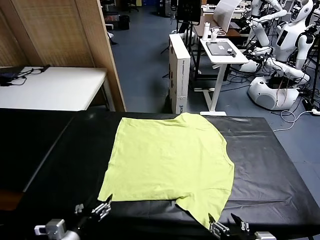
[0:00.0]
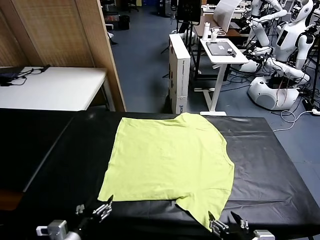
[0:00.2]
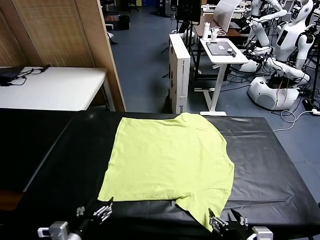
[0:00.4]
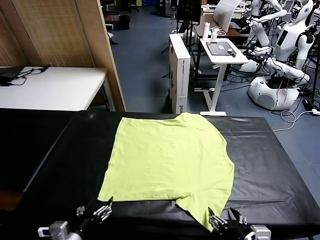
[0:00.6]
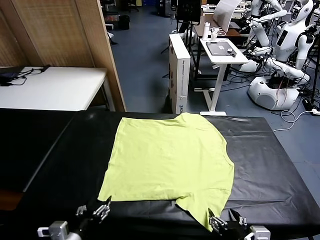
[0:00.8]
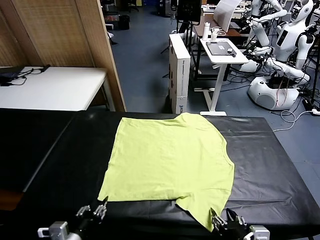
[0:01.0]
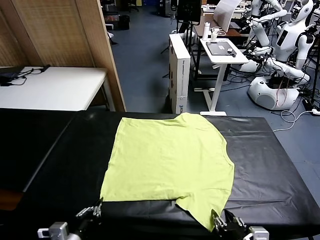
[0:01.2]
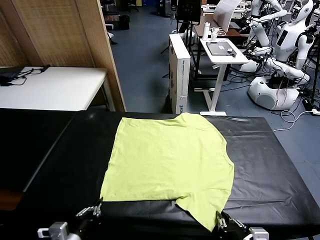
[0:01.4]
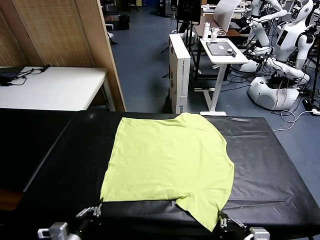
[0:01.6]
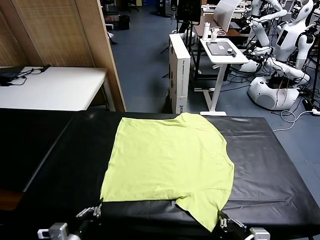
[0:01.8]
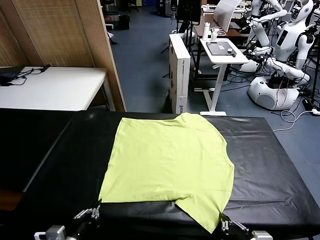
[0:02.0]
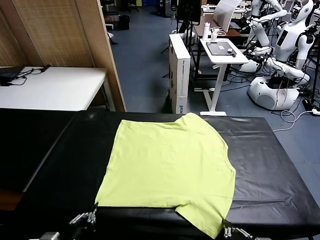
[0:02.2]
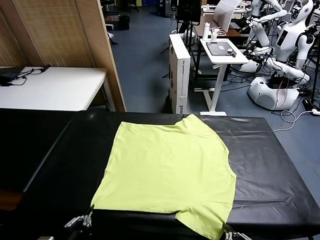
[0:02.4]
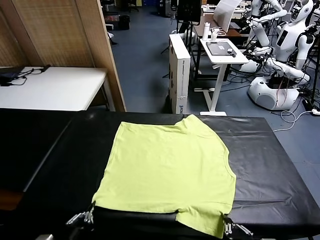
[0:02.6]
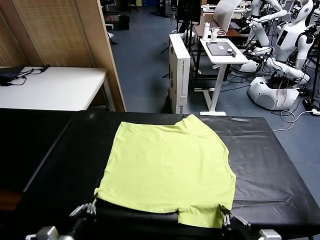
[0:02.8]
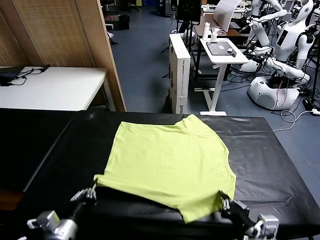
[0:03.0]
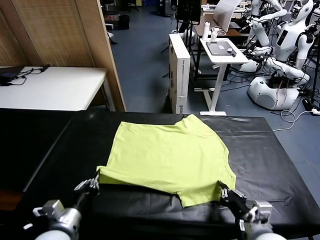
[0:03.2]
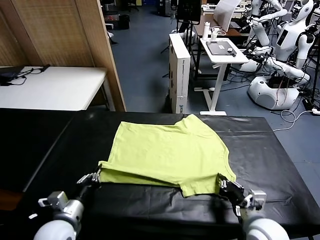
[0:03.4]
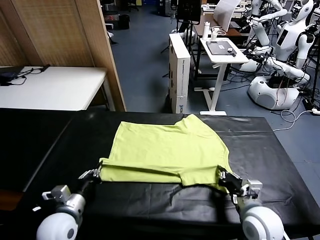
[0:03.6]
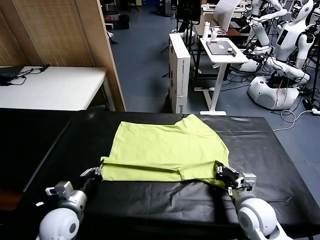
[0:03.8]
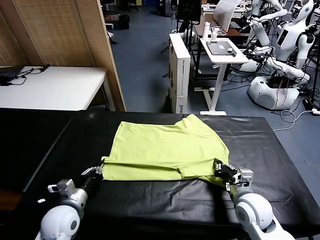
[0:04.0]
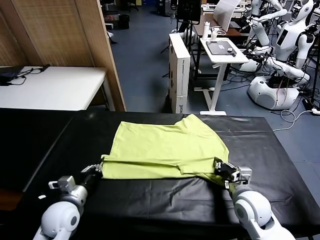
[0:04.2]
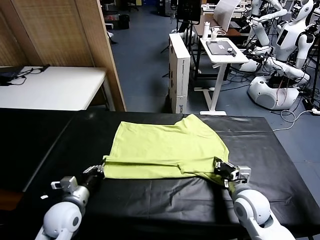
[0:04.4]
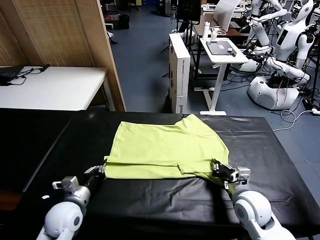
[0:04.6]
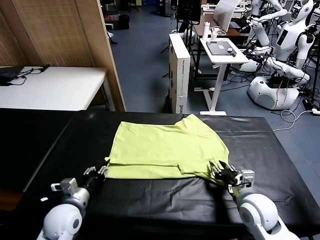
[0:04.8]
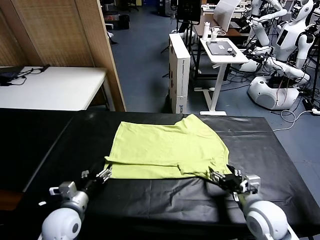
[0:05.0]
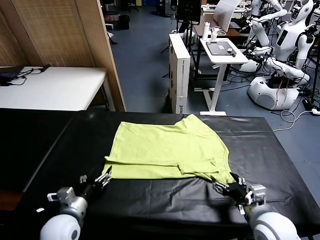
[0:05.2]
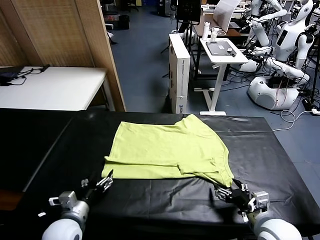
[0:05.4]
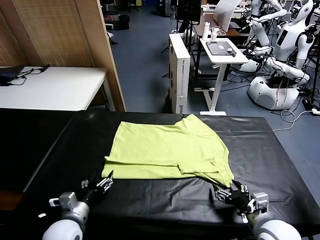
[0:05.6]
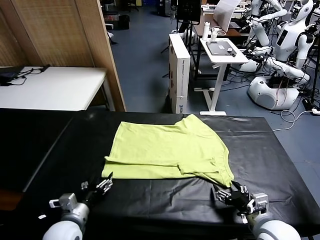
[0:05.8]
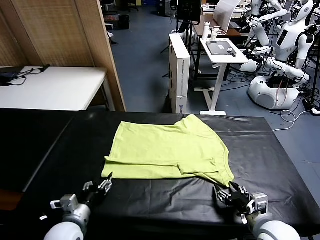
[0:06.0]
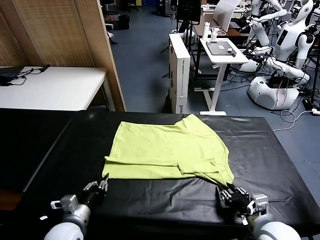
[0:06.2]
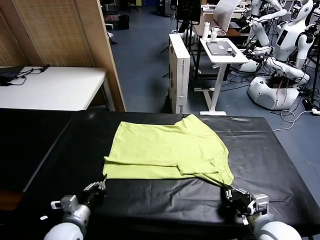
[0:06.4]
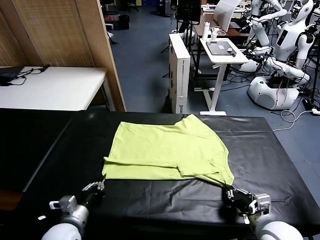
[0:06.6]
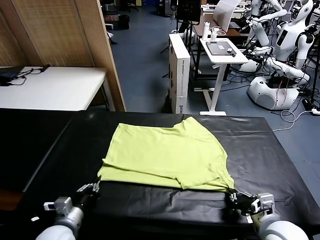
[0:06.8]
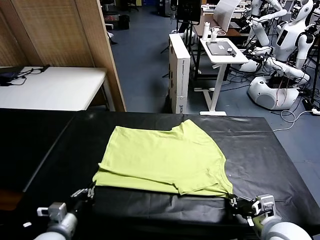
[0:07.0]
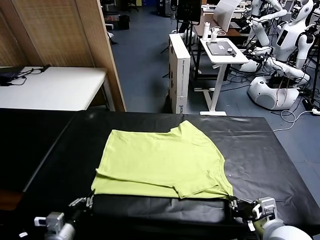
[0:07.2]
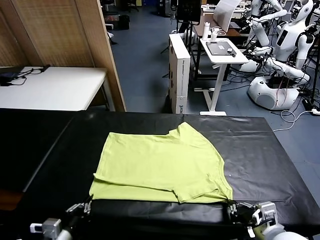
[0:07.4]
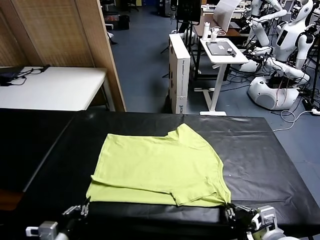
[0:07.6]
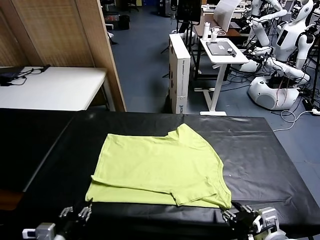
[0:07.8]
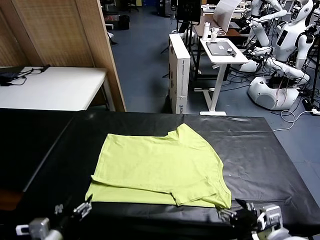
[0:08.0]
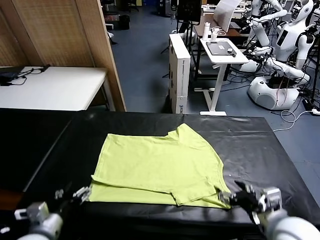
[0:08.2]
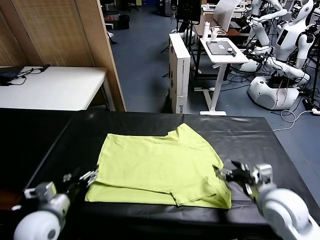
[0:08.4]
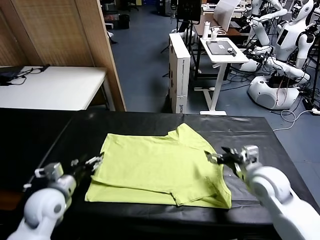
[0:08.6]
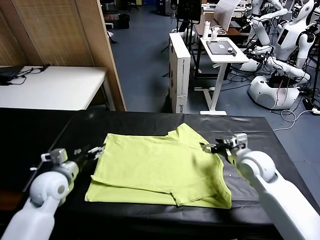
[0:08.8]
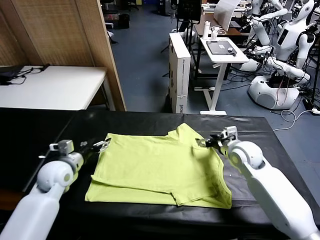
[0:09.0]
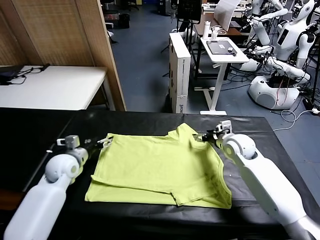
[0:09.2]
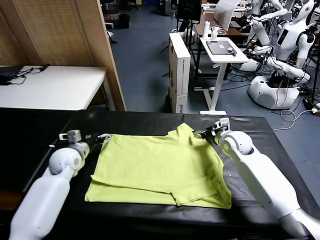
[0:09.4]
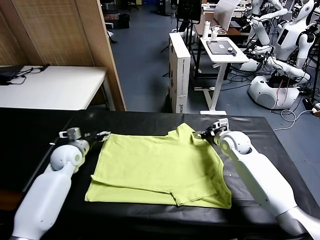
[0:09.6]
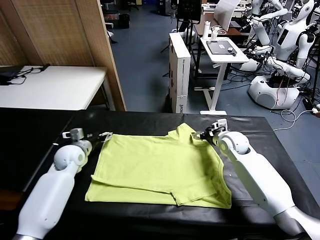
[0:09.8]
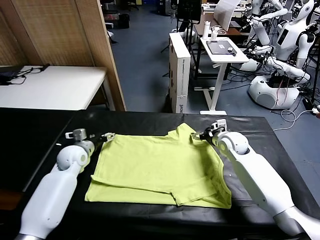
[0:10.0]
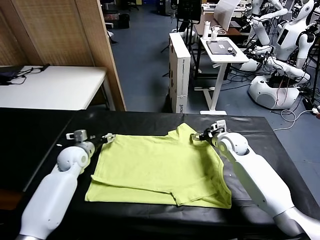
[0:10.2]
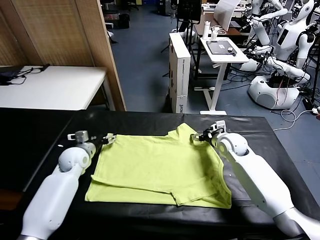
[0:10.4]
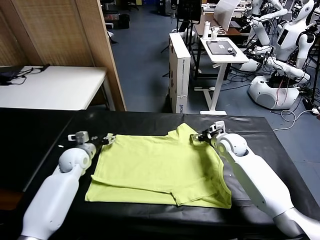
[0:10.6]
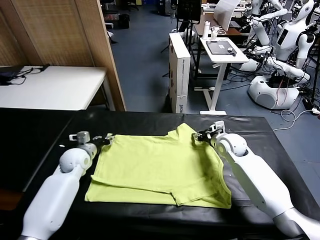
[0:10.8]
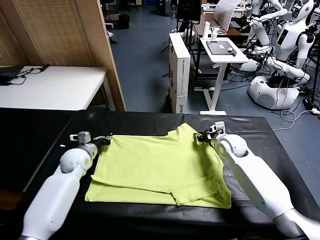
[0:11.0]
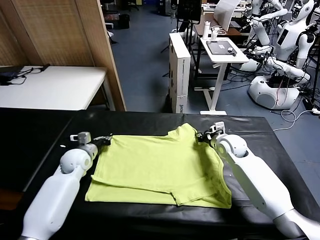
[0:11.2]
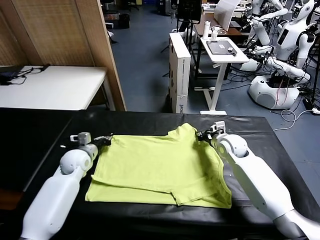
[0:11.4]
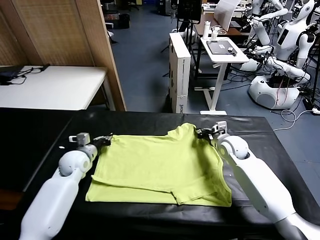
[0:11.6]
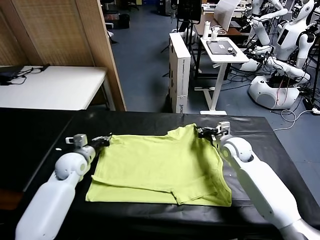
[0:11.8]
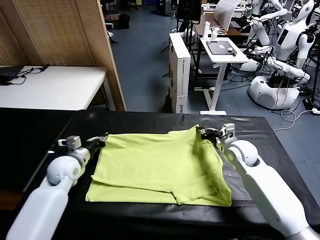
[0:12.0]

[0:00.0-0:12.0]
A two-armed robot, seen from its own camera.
Task of the whole recording: fold and organize the clothes.
Step, 0.0 to 1.8 s: use both grippers simultaneously to clamp the lower edge of the clothing fabric.
Step, 2.0 to 4.8 s: use both grippers to drag the lower edge of the fabric forward and fold it over the upper edge.
Step, 5.0 to 8.0 s: Drag the clothes downward with both gripper.
Step, 8.2 to 11.2 s: use both grippers simultaneously to clamp the upper edge of the clothing fabric.
1.6 to 3.0 s: The right gripper heads forward, covering roughly 5 cm.
3.0 to 4.4 s: The grippers both shift forward by approximately 10 cm.
4.4 to 6.0 s: The left gripper moves backward, about 5 cm, and opens its fingers. The right gripper heads backward, covering some 10 cm, and opens.
6.0 to 7.6 s: The right gripper goes roughly 10 cm upward and backward, and closes and opens again. Meanwhile the left gripper moves backward, approximately 10 cm, and closes.
7.6 to 9.0 s: Both grippers move forward, some 30 cm. The left gripper opens up. The right gripper opens.
9.0 to 10.4 s: The left gripper goes some 10 cm forward.
10.4 to 12.0 s: Both grippers travel together backward, some 5 cm. The left gripper closes; the right gripper closes its fingers.

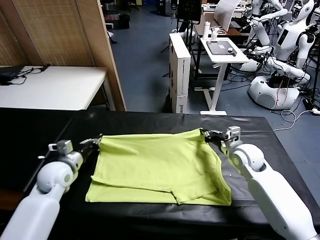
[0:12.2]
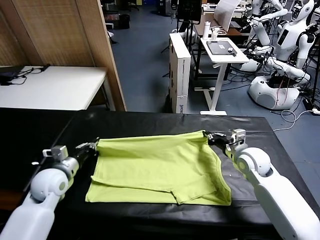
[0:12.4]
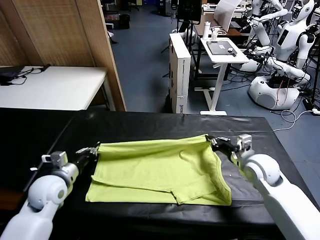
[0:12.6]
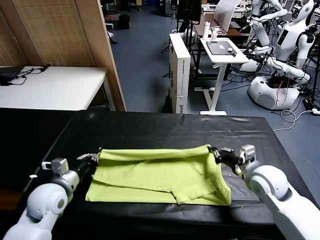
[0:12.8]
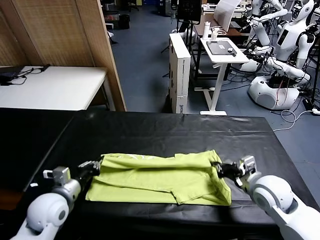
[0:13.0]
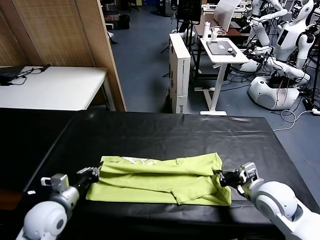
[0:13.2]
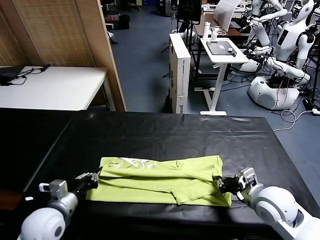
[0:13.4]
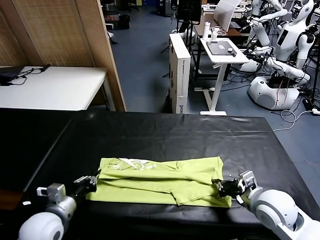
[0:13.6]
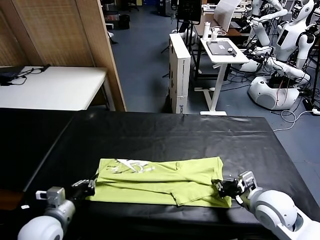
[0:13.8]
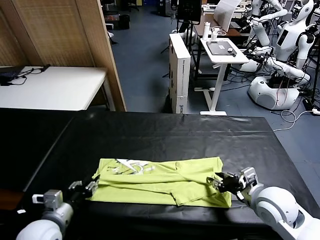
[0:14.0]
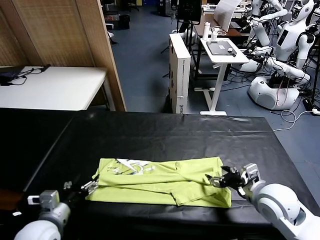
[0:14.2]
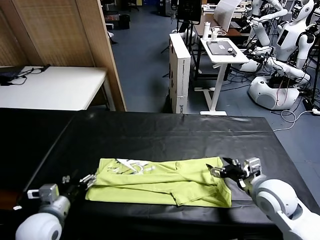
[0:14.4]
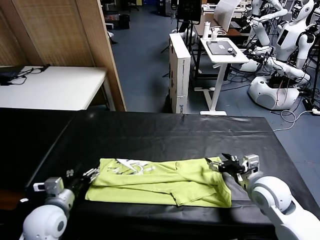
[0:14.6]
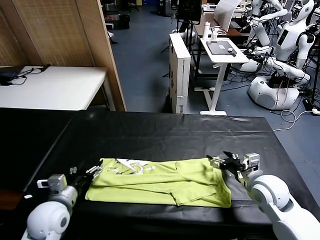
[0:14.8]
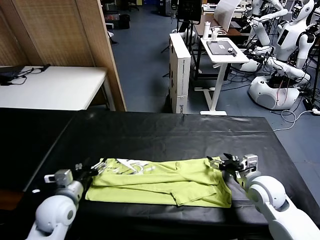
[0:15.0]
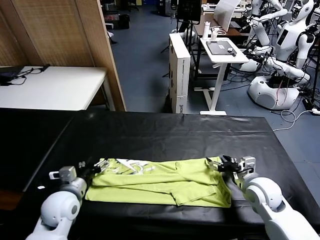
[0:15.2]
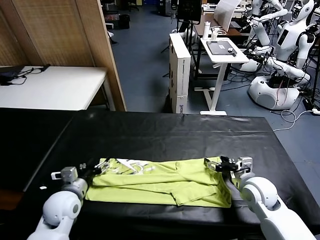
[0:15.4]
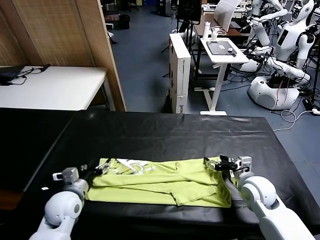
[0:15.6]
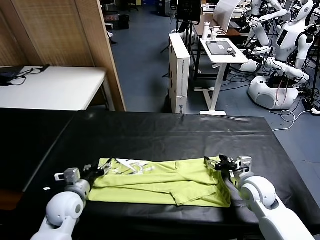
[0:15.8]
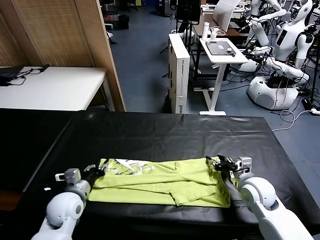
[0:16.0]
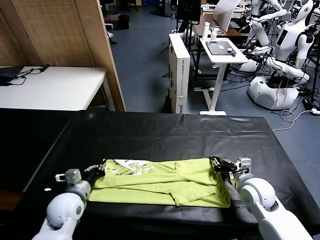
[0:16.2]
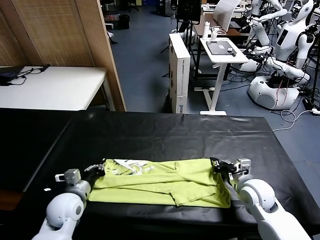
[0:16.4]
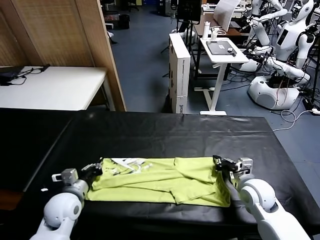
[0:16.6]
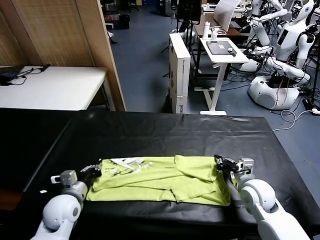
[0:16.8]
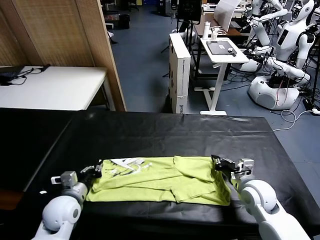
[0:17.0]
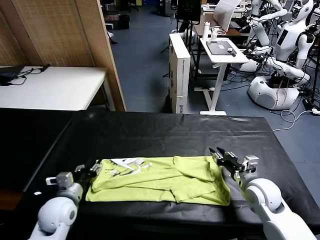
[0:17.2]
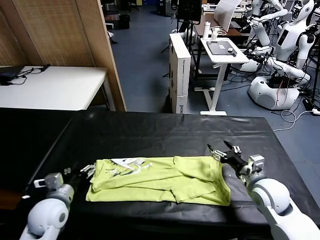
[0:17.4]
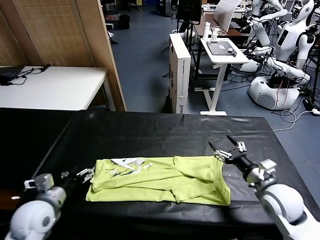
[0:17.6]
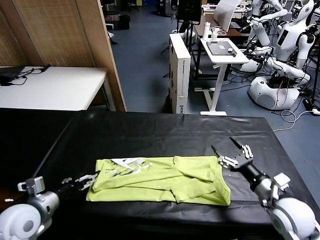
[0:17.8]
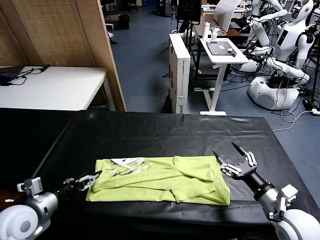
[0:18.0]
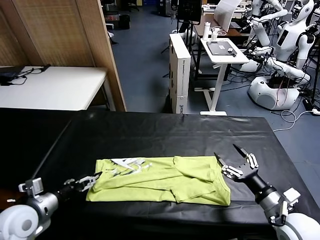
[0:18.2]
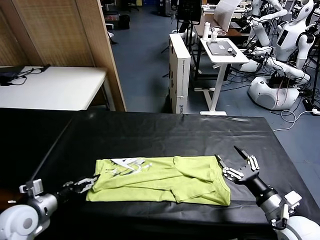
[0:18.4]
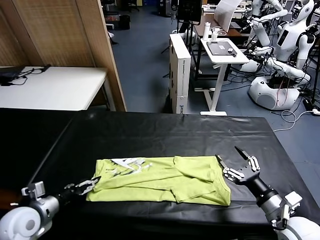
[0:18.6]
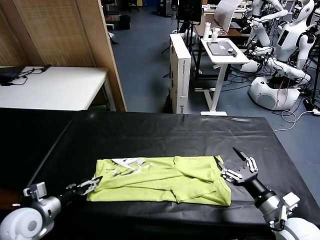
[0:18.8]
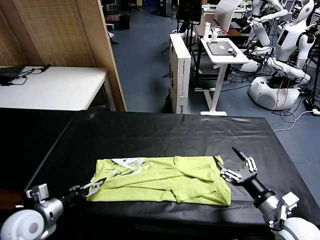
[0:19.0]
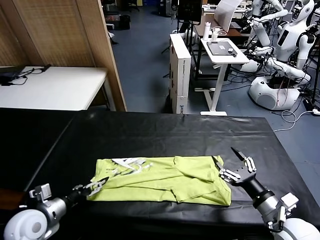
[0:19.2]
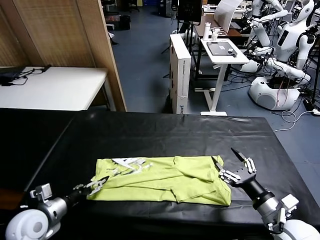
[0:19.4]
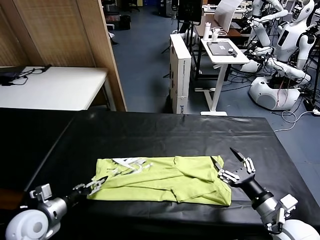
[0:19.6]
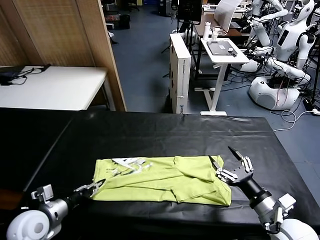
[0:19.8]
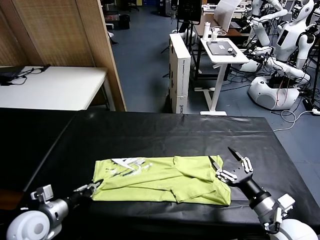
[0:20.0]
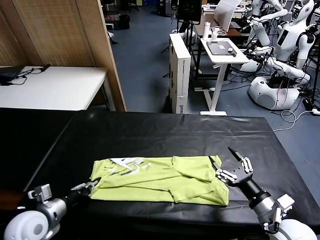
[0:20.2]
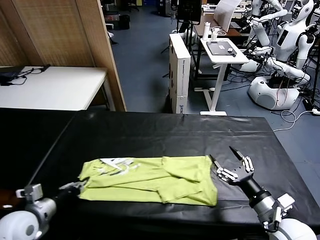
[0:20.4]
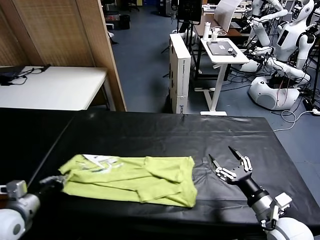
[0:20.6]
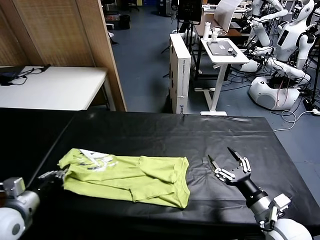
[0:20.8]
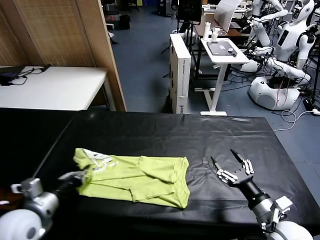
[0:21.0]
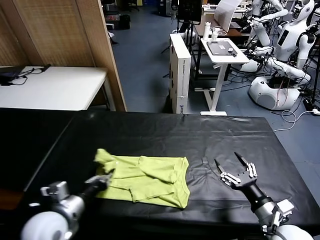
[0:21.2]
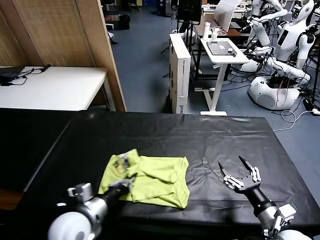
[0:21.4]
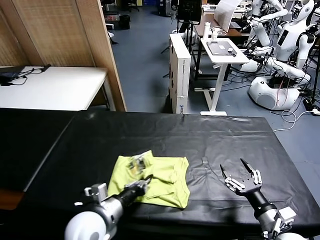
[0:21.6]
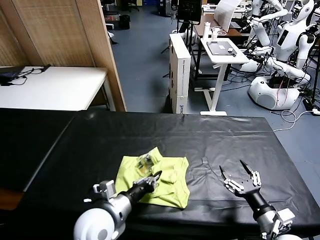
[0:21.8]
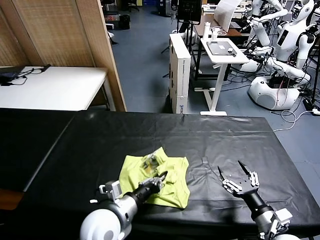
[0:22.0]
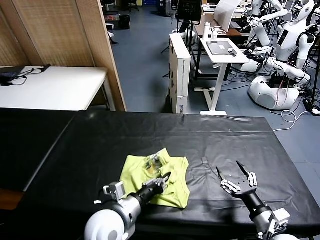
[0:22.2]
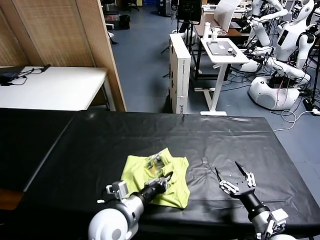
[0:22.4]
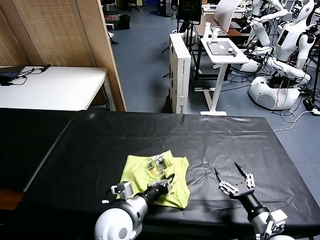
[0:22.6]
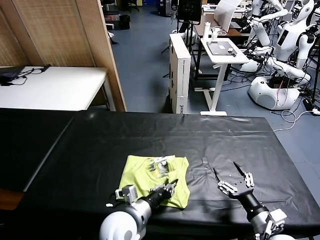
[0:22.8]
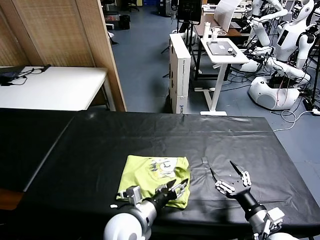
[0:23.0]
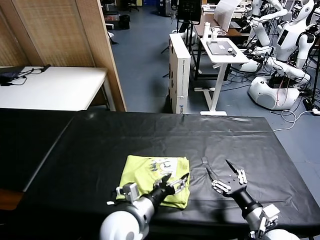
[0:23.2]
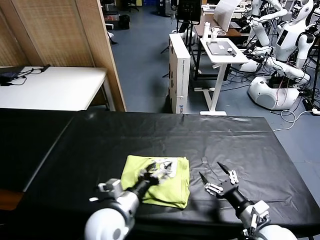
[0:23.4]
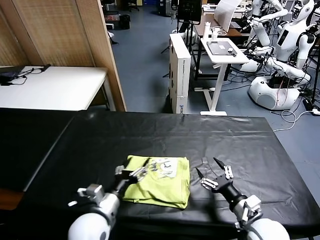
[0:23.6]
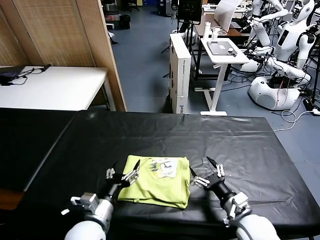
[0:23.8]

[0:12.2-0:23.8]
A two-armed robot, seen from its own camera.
Task of the whole recording: fold and organize the clothes.
Step, 12.2 to 14.0 s: use both grippers to drag the upper edge of the fabric backward and fold it over the lower edge.
Step, 14.4 to 20.0 s: use the left gripper to clamp the left edge of the fabric.
Step, 20.2 to 23.0 s: use the left gripper to drag the left edge of the fabric to the left and folds it over the right edge.
12.2 to 13.6 s: The two grippers go approximately 15 cm backward.
13.6 to 15.0 s: The grippers both shift forward by approximately 5 cm. The right gripper opens, while the left gripper opens up.
15.0 to 16.6 s: The right gripper closes its fingers, while the left gripper closes its fingers.
16.6 to 18.0 s: The right gripper is displaced backward by some 10 cm, and opens. The left gripper goes approximately 10 cm upward, to the left and backward, and opens.
18.0 to 19.4 s: The left gripper shifts some 5 cm downward.
19.4 to 21.0 s: The left gripper goes some 5 cm upward, and closes its fingers.
21.0 to 22.4 s: The left gripper shifts some 20 cm to the right.
22.4 to 23.8 s: The left gripper goes approximately 5 cm to the left, and opens, while the right gripper shifts roughly 10 cm forward and to the left.
